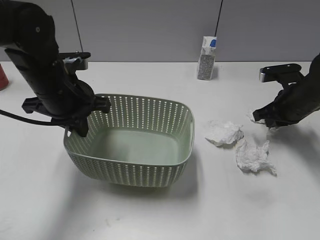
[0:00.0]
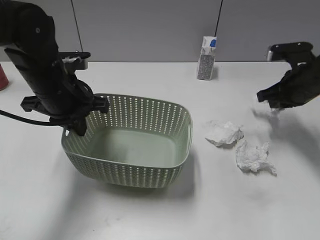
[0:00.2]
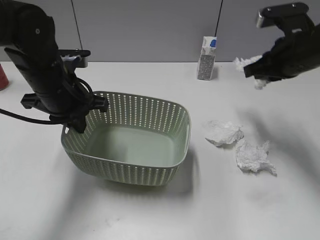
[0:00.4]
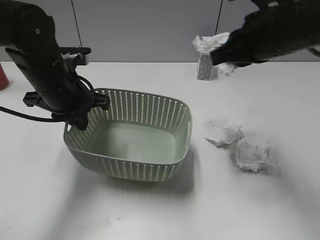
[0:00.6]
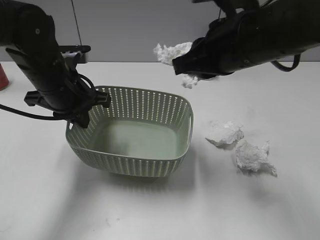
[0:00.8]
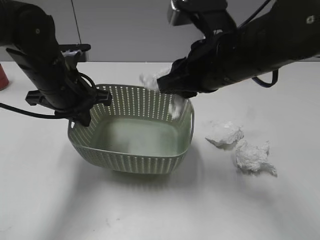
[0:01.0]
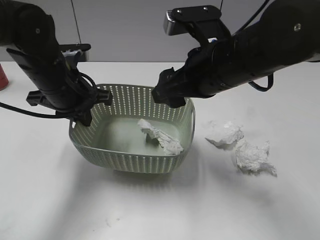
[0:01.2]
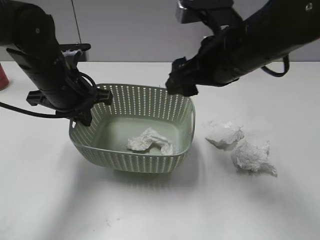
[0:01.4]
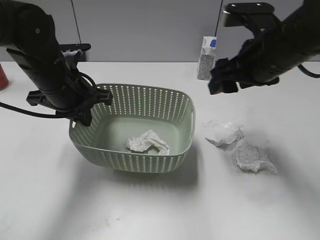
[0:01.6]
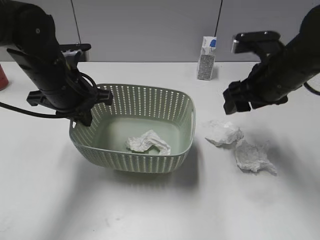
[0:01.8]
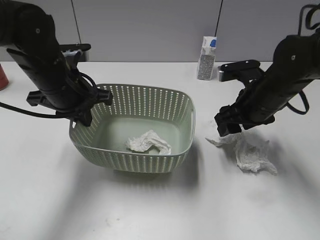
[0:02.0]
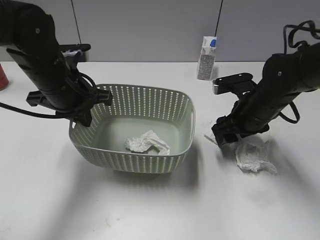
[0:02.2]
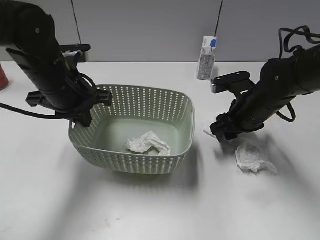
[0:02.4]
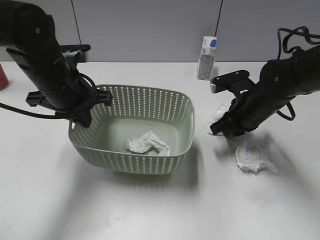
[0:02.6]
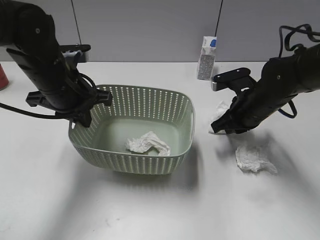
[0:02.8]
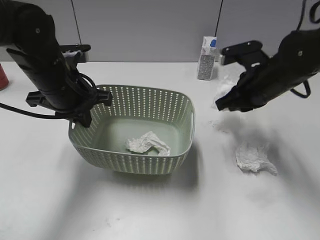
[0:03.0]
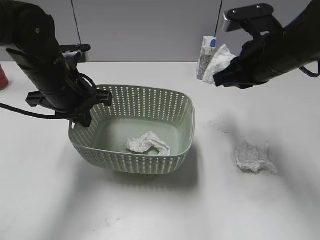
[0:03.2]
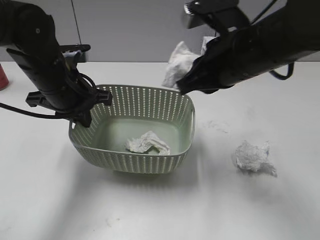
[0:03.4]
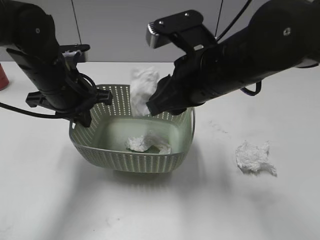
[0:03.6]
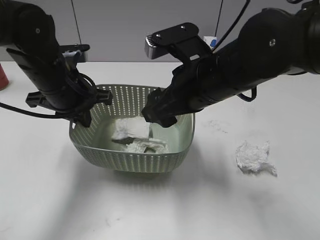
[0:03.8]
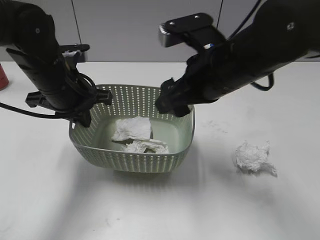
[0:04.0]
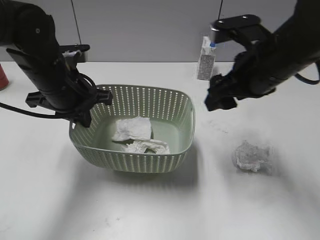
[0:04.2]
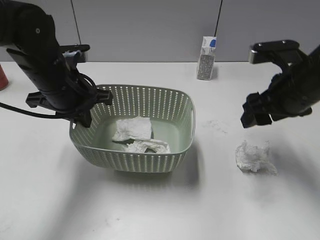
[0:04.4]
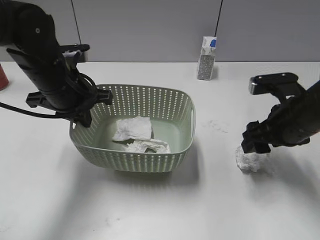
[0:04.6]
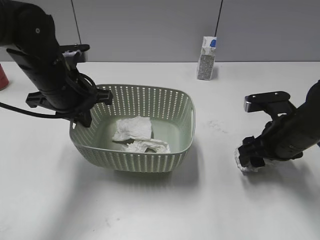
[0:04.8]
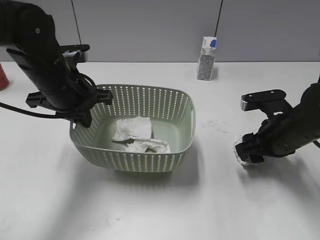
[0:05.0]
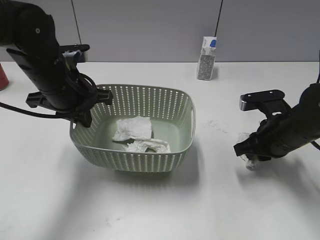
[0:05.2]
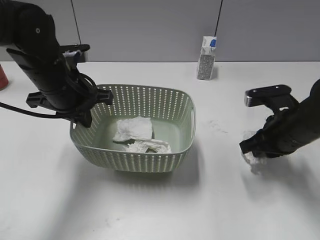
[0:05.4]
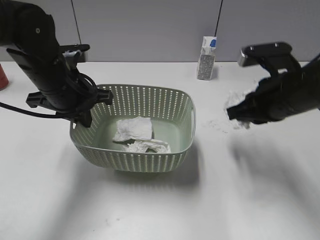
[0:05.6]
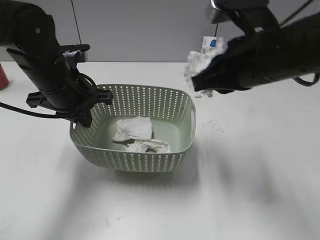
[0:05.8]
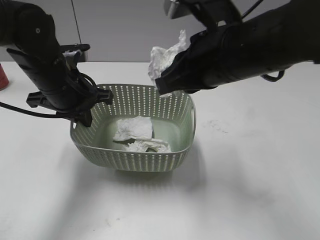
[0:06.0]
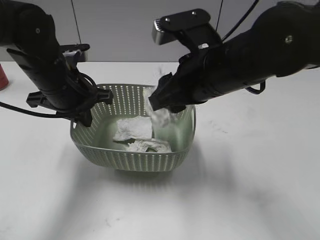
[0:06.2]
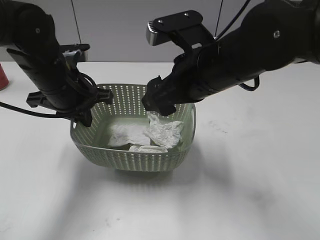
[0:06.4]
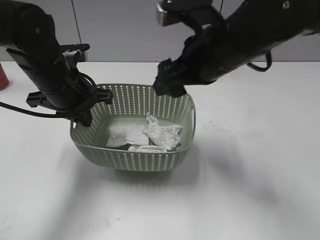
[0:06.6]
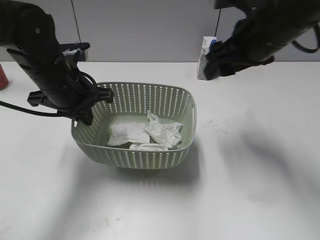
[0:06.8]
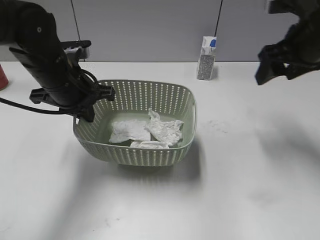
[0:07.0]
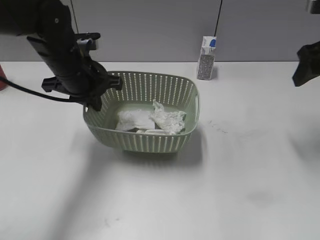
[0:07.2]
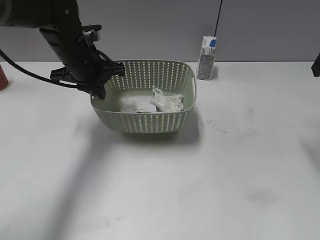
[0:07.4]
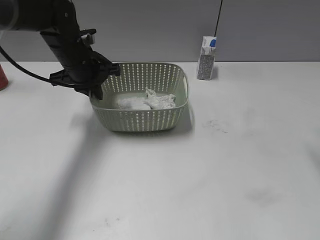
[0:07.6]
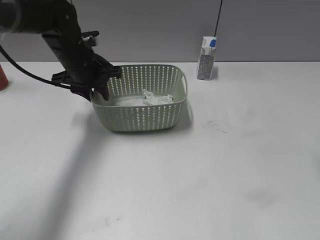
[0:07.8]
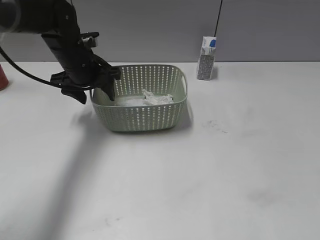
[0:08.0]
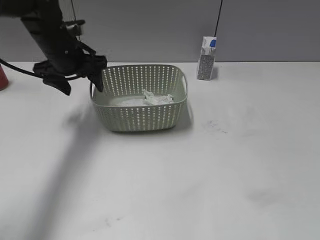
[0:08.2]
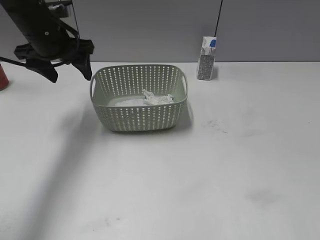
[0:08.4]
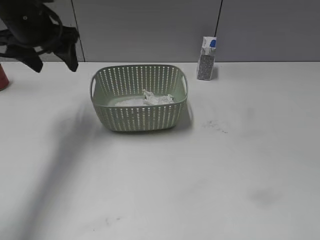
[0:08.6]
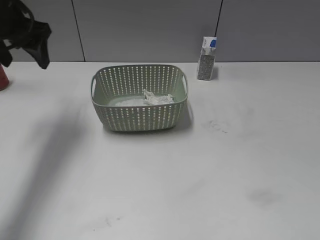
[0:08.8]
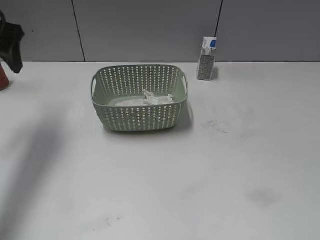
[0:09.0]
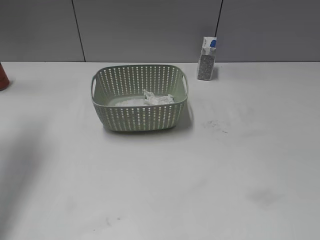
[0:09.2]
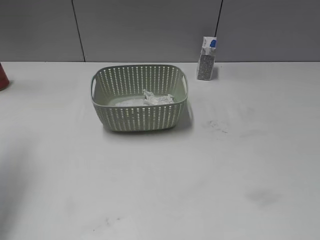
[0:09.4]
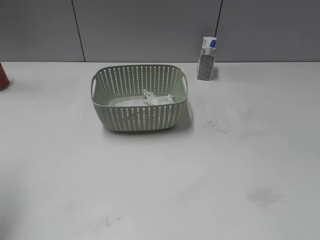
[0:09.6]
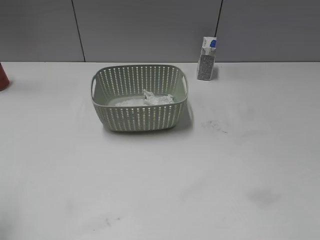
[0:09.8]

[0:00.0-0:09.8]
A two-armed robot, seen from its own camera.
Step, 0:00.4 to 0:01.2: Place the waste paper in the basket with right gripper.
Step, 0:01.4 to 0:02.8: Grasp the waste paper with right gripper.
Step, 0:03.0 to 0:03.8: Place the waste paper in the basket with right gripper.
Step, 0:04.0 to 0:05.4: Grasp the waste paper with right gripper.
Step, 0:05.6 to 0:06.4: Place the waste paper in the basket with right gripper.
Step, 0:06.6 to 0:08.0: Place the basket on the table with left gripper.
0:00.0 to 0:01.4: The right gripper goes about 25 cm to the left, upward and backward, and opens.
0:01.4 to 0:02.8: The right gripper heads downward, to the right and forward, covering approximately 20 cm, and closes up.
0:02.8 to 0:04.2: The right gripper moves upward and backward, some 15 cm, and opens its fingers.
0:04.2 to 0:05.6: The right gripper closes.
0:05.6 to 0:07.0: The right gripper heads upward and forward, covering about 10 cm, reaches approximately 15 cm to the left, then returns, and opens.
0:07.0 to 0:08.4: The left gripper shifts approximately 10 cm forward, and opens up. Meanwhile the right gripper moves backward and to the right, about 20 cm.
0:08.4 to 0:09.8: The left gripper travels backward and to the left by roughly 30 cm.
